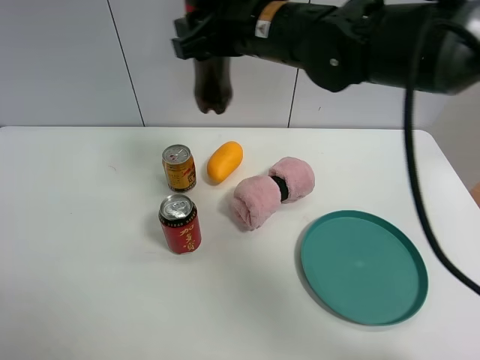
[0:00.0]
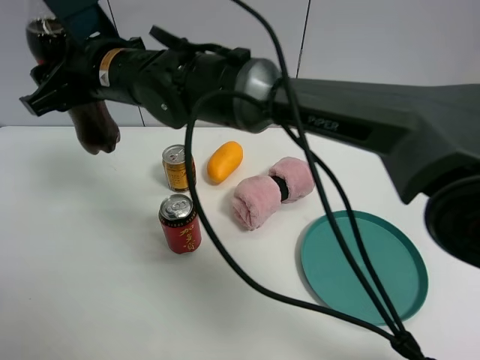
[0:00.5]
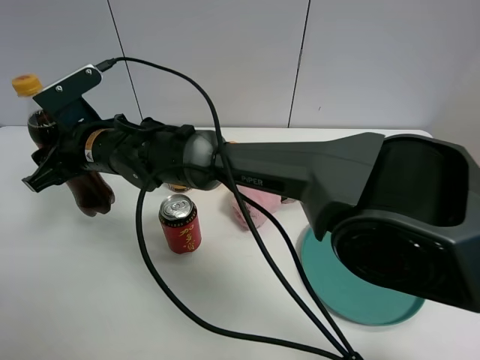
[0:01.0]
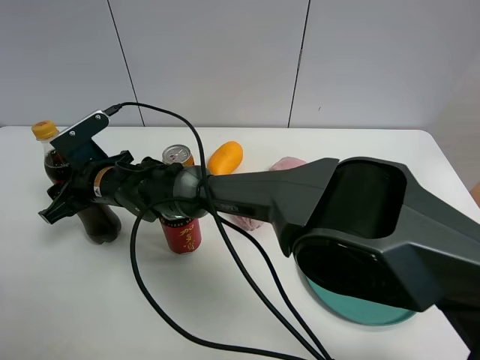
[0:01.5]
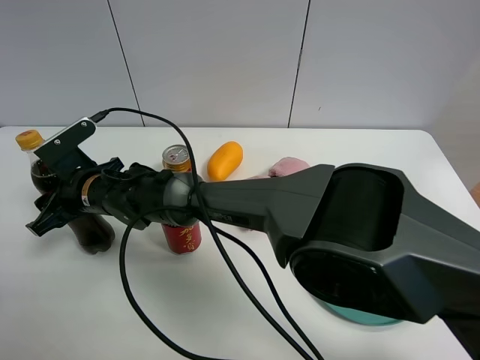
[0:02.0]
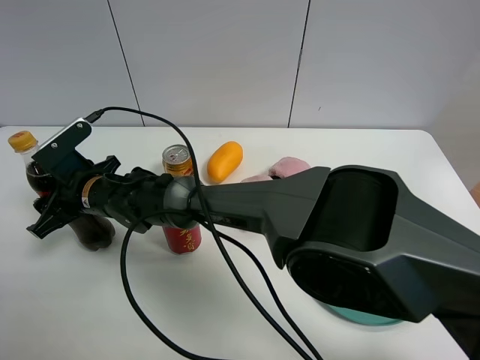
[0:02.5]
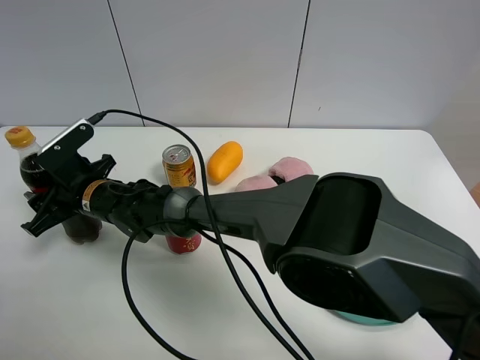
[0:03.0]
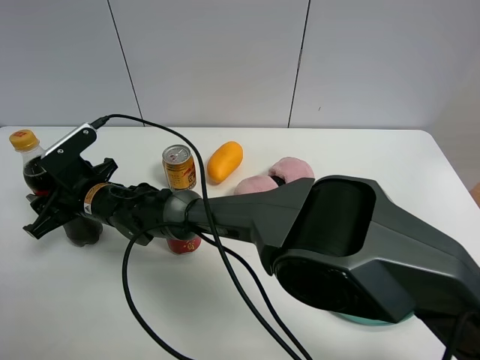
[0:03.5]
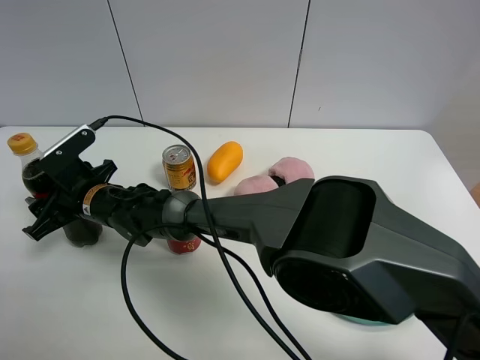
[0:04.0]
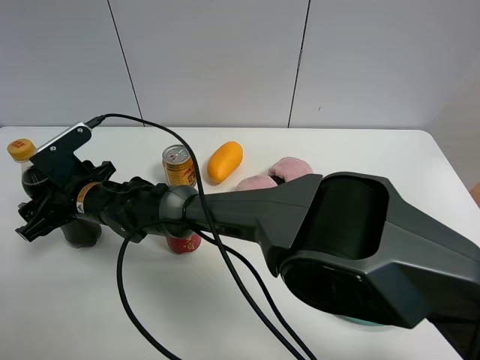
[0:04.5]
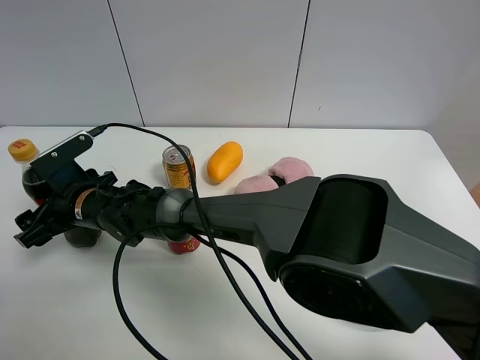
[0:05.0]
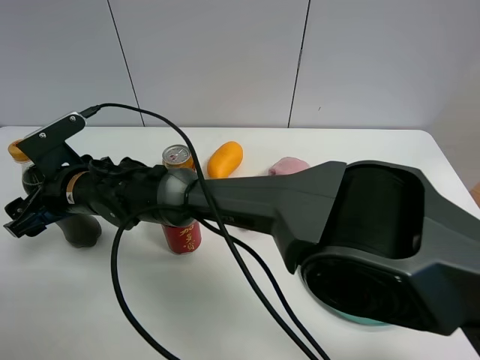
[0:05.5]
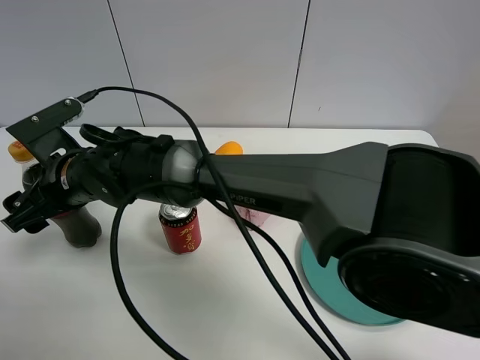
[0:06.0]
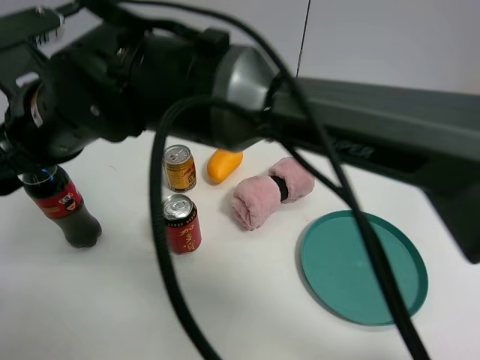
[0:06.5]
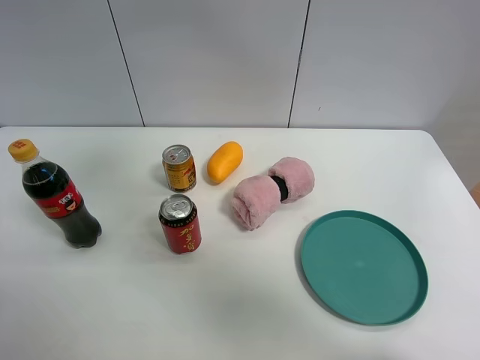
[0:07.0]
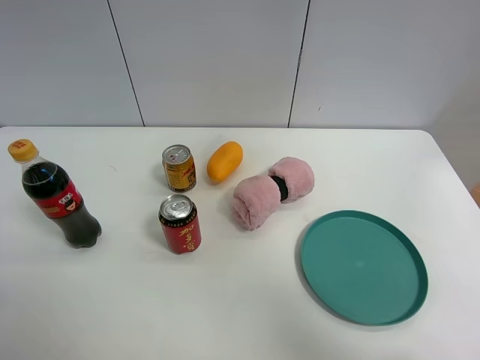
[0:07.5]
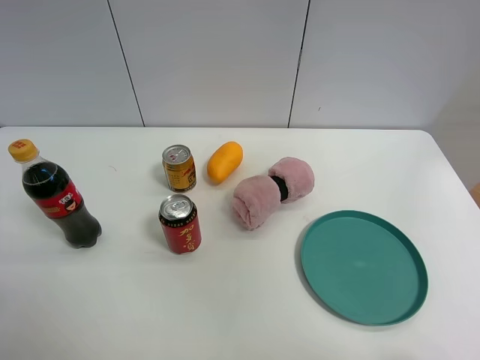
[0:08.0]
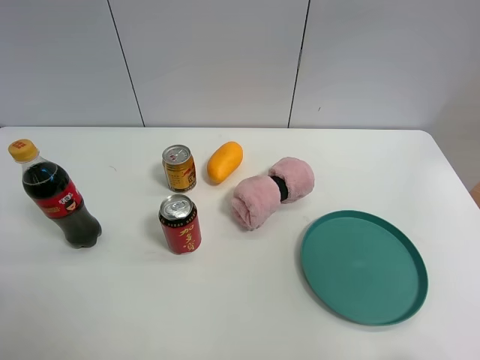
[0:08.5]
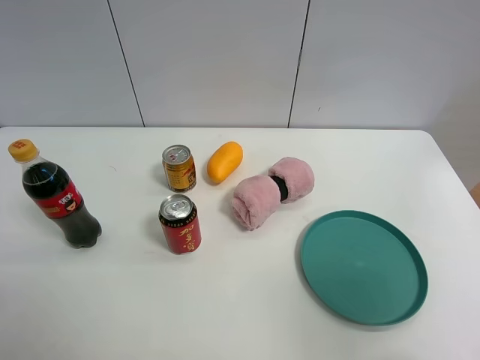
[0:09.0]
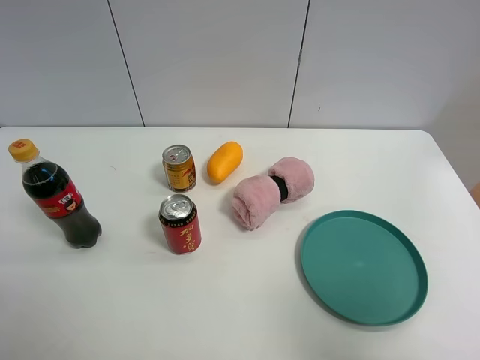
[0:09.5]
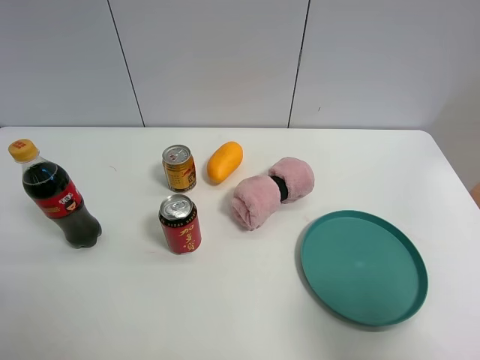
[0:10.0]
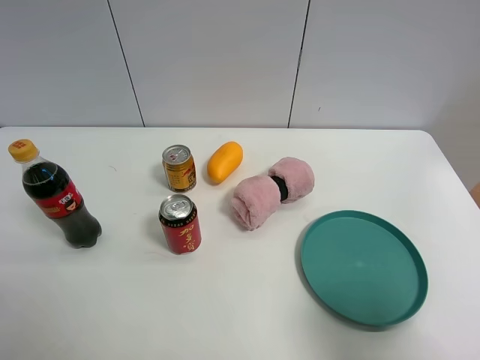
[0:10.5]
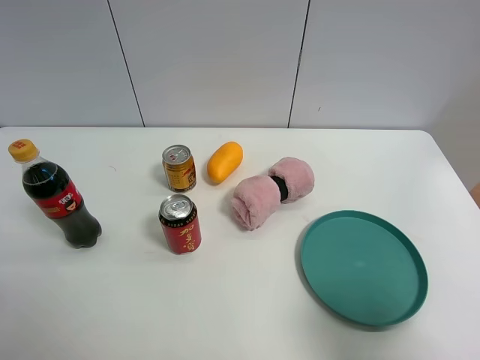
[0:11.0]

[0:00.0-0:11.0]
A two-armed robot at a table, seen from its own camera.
Task of the whole recording: the gripper move the object.
Step, 0:00.0 to 0:04.5: Place the coke on the table with the right gripper.
0:00.0 to 0:02.0: The right gripper heads downward and to the left, covering some 30 cm.
0:02.0 to 0:03.5: The grippers stay close to where they were, moving slightly.
0:03.5 to 0:05.5: The right gripper moves approximately 5 cm, and opens its fingers.
0:05.5 to 0:07.5: The right gripper shifts approximately 60 cm to the right and upward.
0:07.5 to 0:09.0: The right gripper goes some 30 cm backward and to the right.
0:09.0 to 0:11.0: The right gripper goes roughly 15 cm downward.

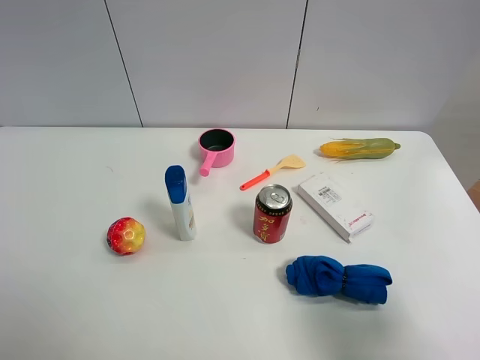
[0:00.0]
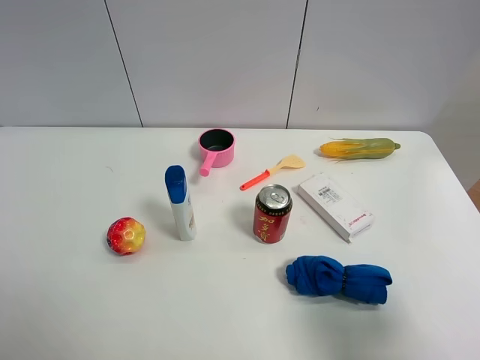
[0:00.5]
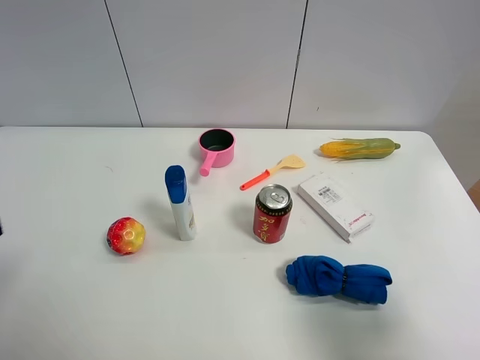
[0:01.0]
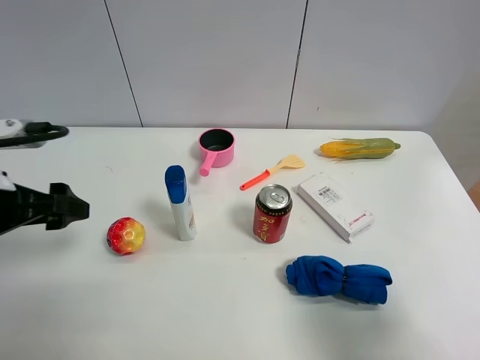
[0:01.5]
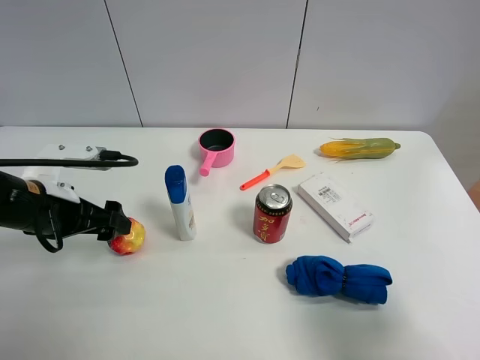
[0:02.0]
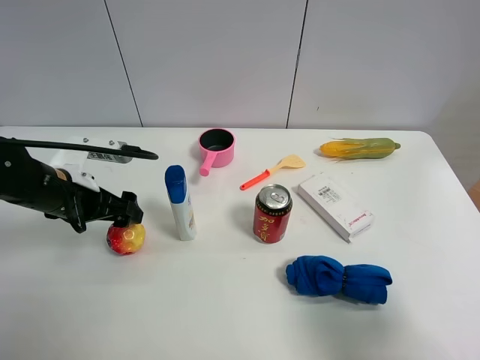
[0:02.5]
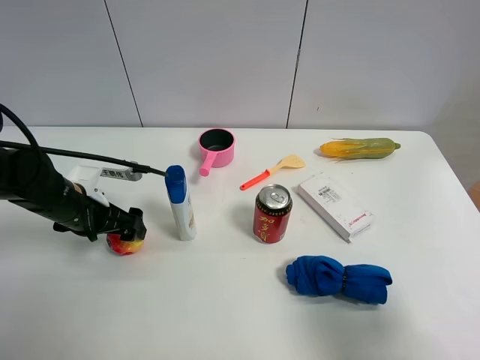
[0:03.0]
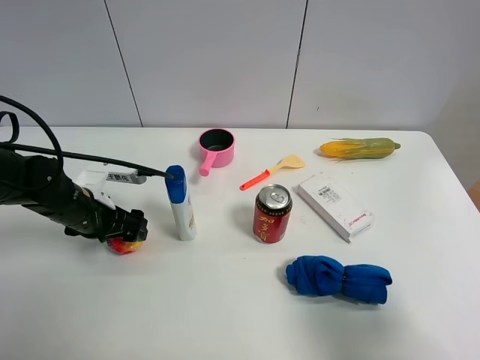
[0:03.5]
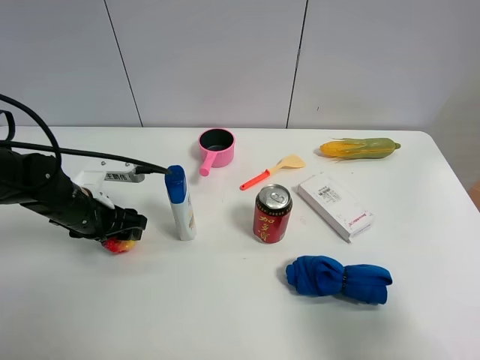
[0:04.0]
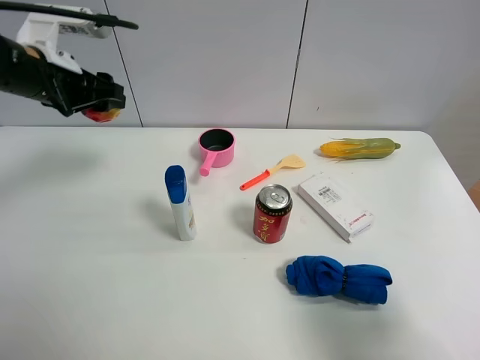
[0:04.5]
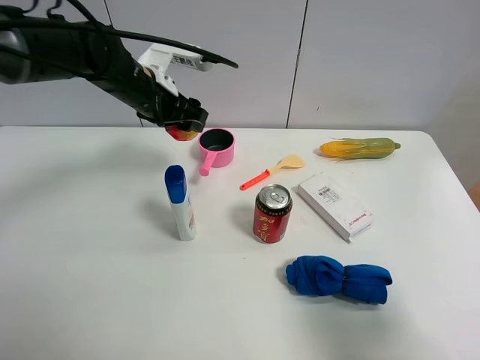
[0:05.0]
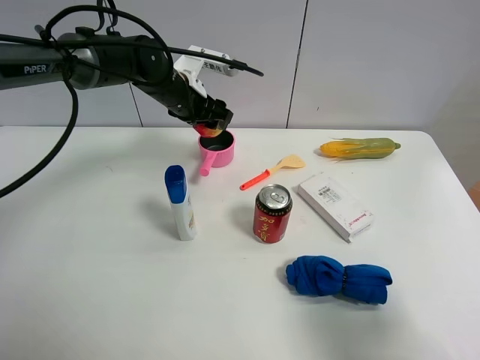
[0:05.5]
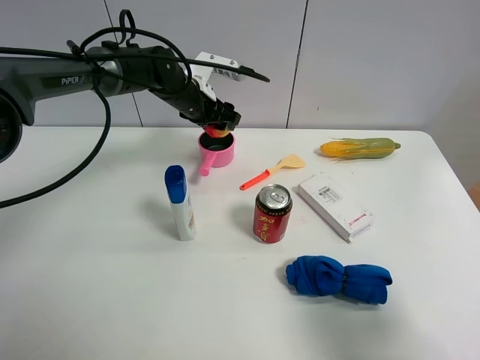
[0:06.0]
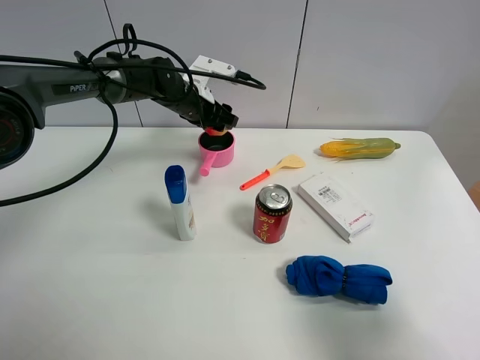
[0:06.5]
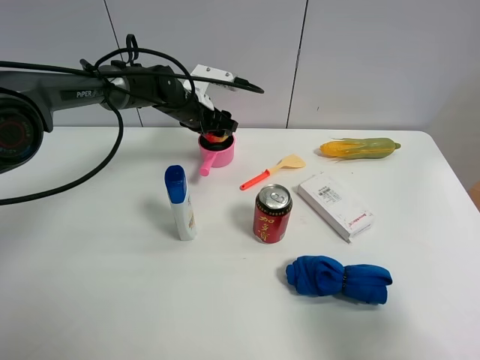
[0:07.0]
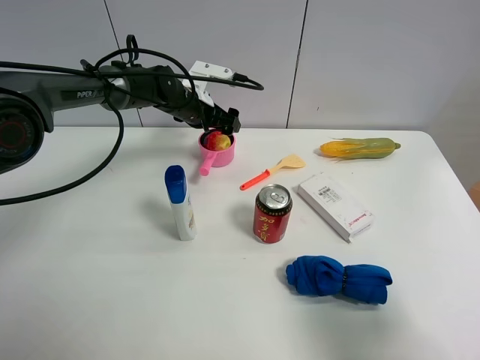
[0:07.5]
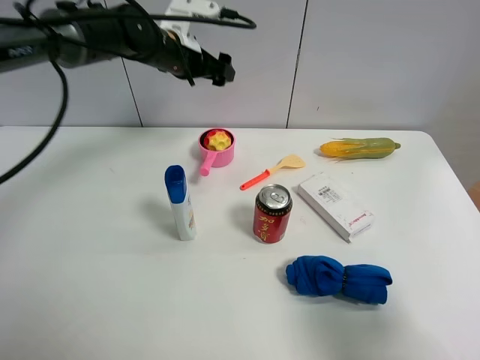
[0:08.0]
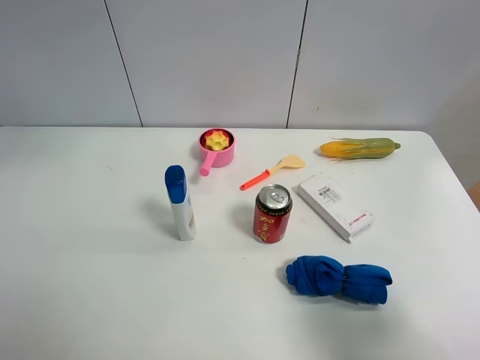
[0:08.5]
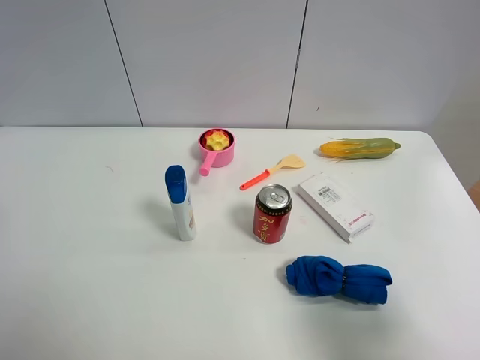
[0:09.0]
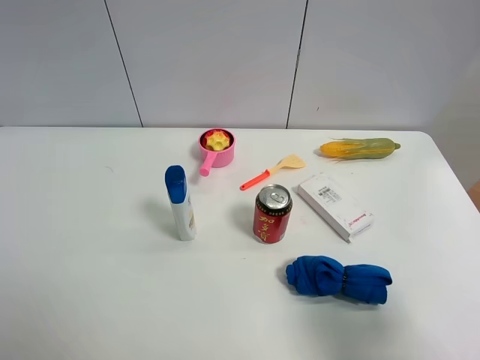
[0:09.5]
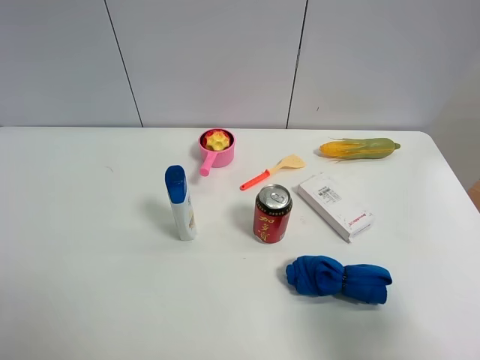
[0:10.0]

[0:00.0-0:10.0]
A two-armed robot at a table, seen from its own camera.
Task of the whole recording: the gripper move the object.
Step, 0:00.0 to 0:03.5: Grasp the colorful ball with the left gripper.
Step, 0:04.0 to 0:07.5: Place the colorful ball into the pink pot with the left gripper.
0:00.0 to 0:02.0: The left gripper is displaced forward and downward by approximately 25 cm.
0:02.0 to 0:04.0: The left gripper is displaced downward by about 5 cm, and closes its fingers.
0:04.0 to 0:06.0: The left gripper goes approximately 25 cm forward and to the right.
0:06.0 to 0:08.0: The left gripper goes approximately 10 cm upward, and opens up.
0:08.0 to 0:10.0: The left gripper moves backward and to the left, approximately 50 cm.

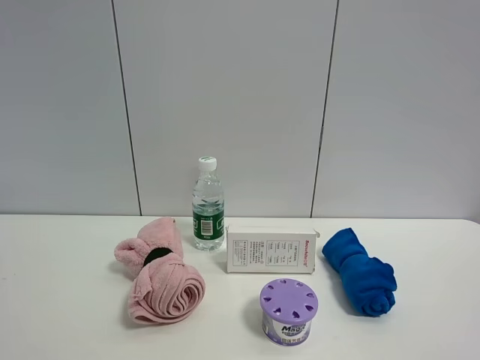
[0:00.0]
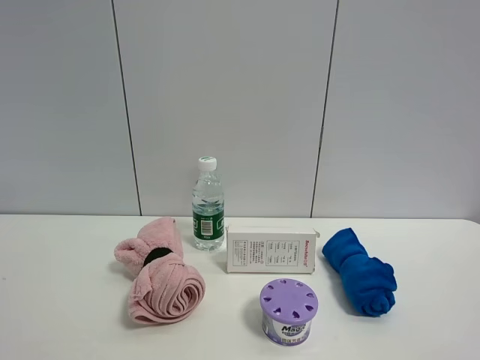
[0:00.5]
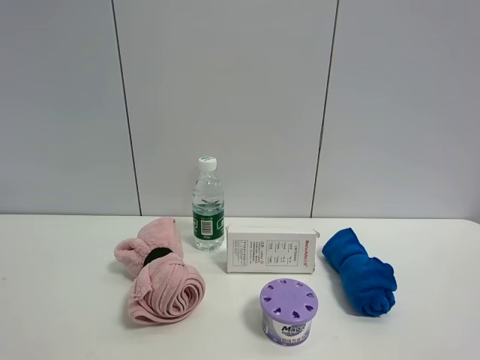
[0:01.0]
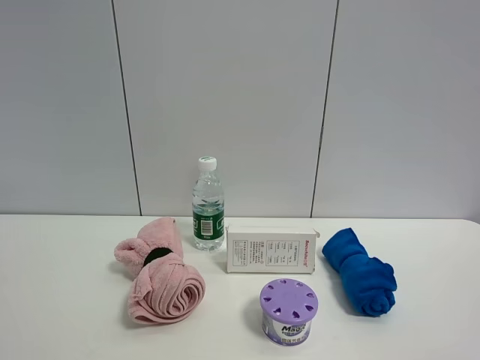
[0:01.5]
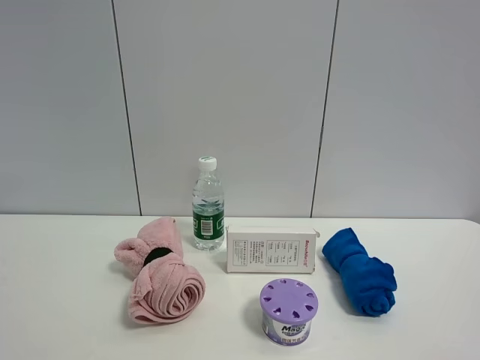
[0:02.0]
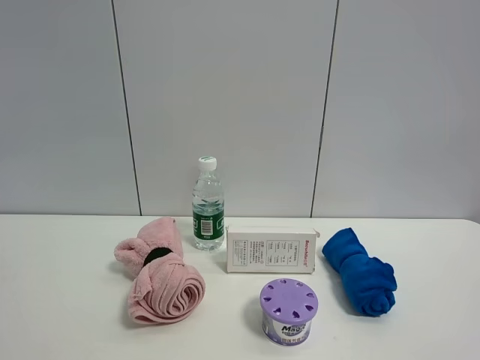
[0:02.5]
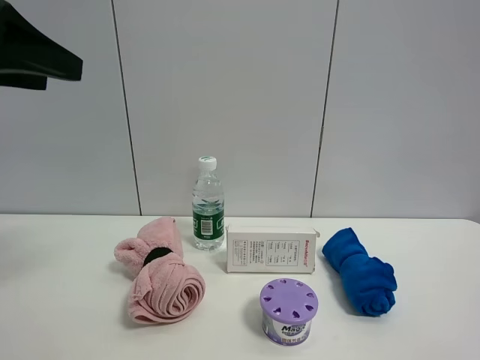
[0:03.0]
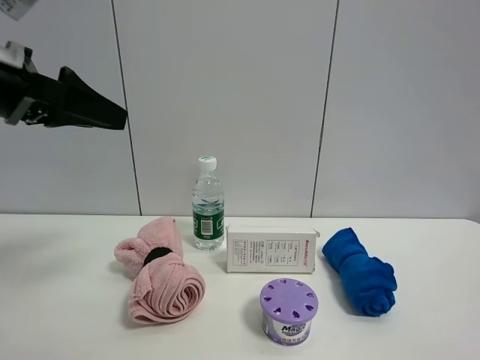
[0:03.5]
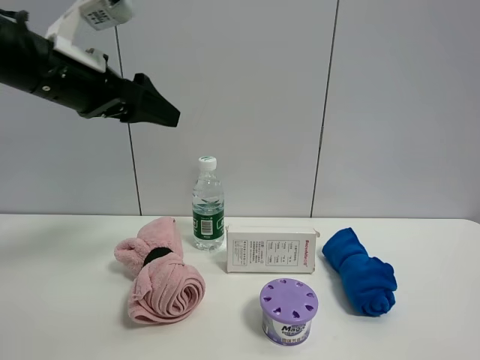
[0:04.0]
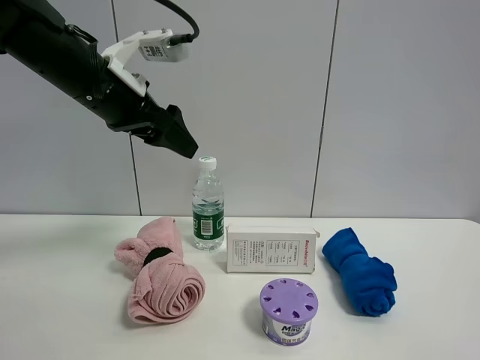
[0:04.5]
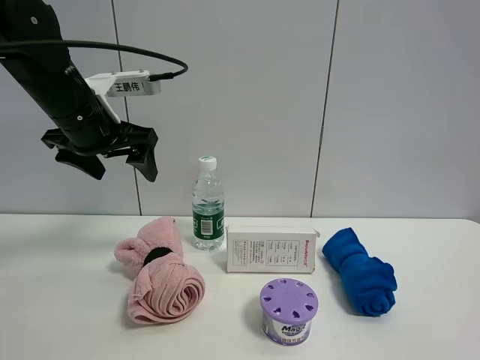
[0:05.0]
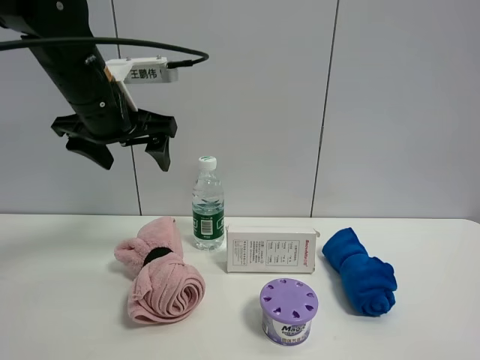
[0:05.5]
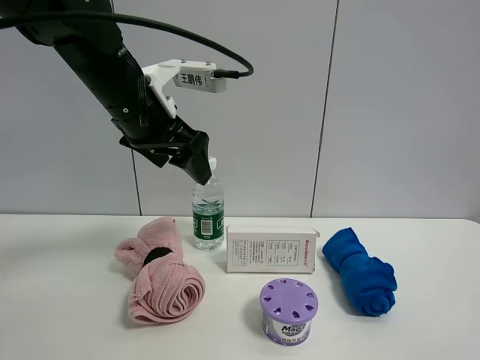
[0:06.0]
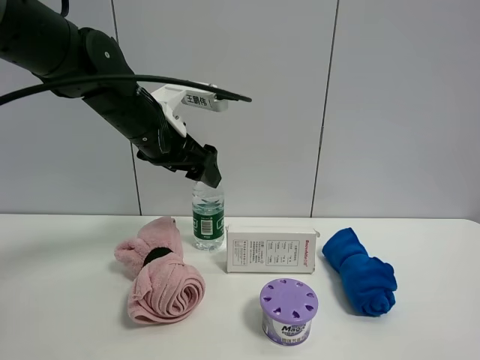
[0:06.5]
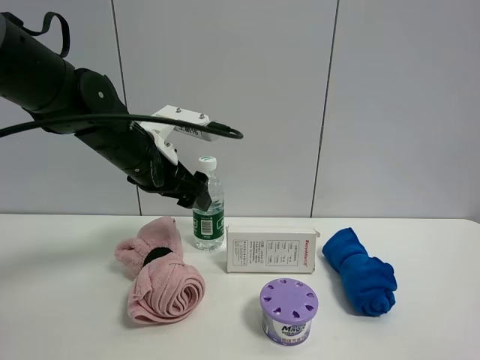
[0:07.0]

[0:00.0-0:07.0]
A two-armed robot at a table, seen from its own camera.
Task of the whole recording: the gripper move the object.
0:02.0 to 0:03.5: The left gripper shifts roughly 30 cm forward.
0:03.5 to 0:05.0: The left gripper shifts some 10 cm forward and to the right.
0:05.0 to 0:07.0: The left gripper travels downward and to the right by approximately 10 cm.
